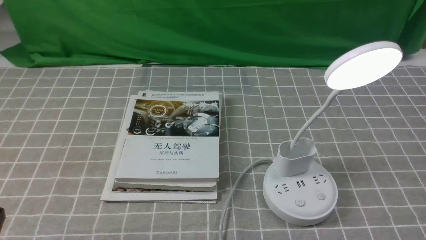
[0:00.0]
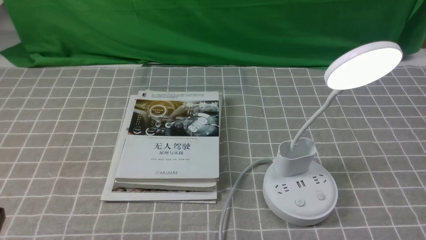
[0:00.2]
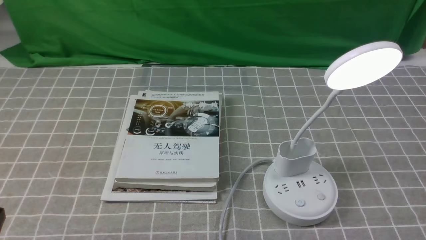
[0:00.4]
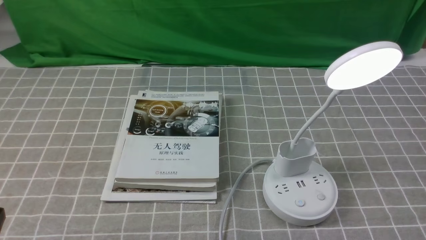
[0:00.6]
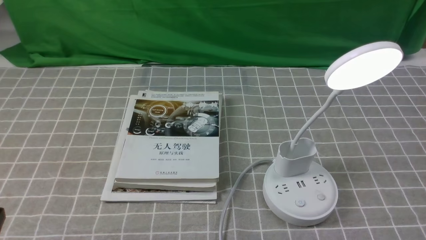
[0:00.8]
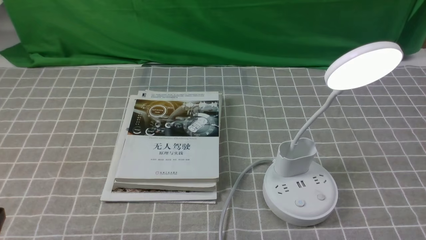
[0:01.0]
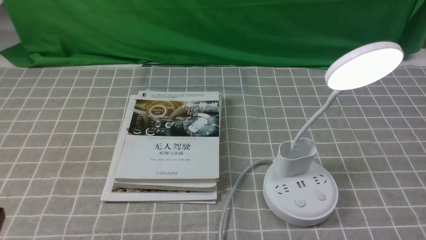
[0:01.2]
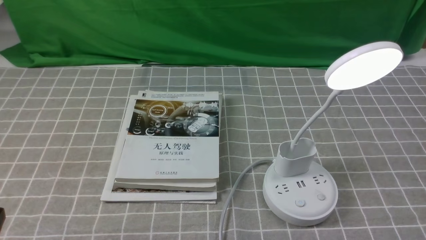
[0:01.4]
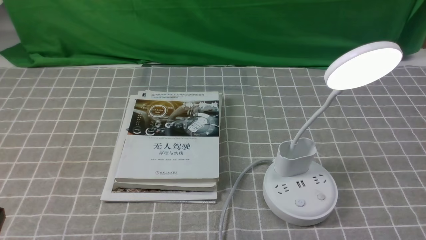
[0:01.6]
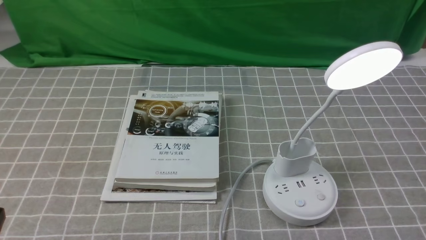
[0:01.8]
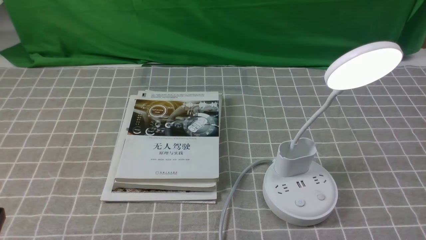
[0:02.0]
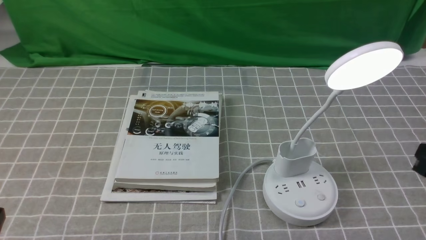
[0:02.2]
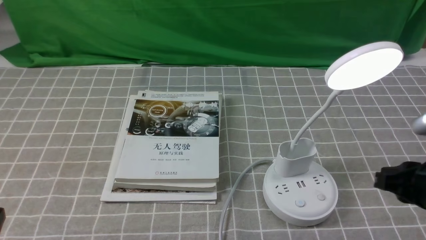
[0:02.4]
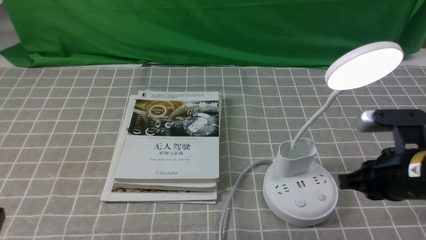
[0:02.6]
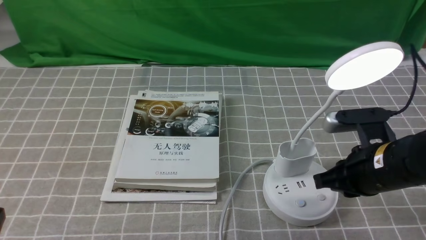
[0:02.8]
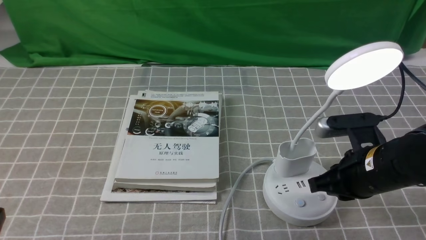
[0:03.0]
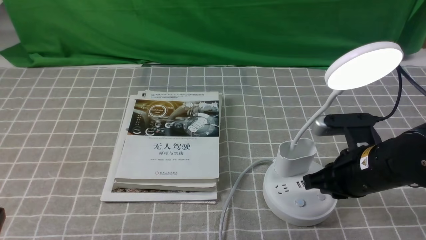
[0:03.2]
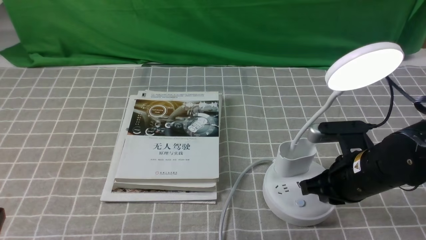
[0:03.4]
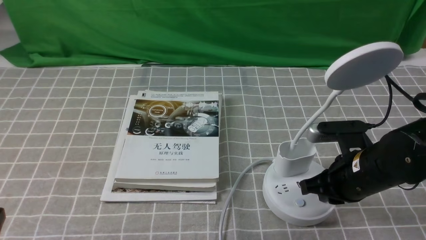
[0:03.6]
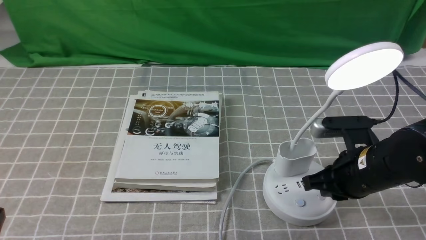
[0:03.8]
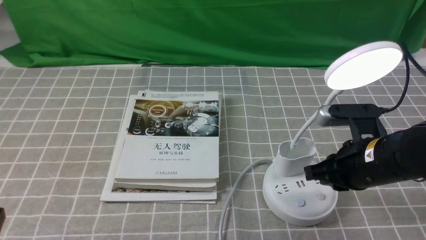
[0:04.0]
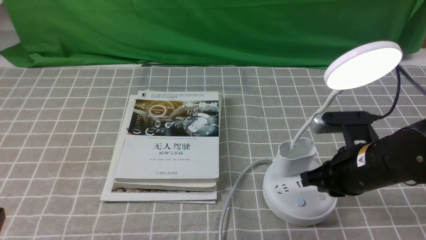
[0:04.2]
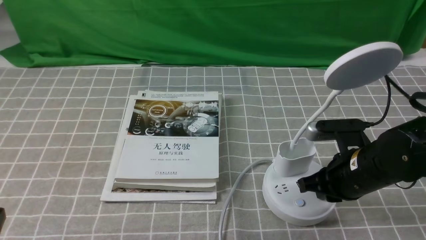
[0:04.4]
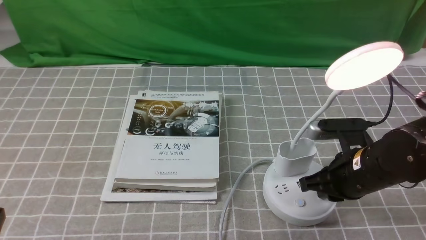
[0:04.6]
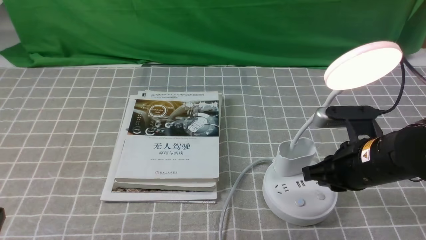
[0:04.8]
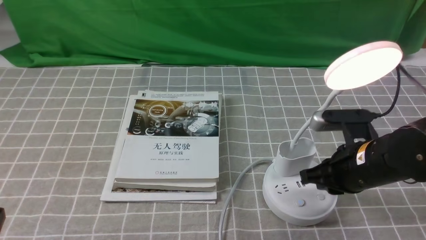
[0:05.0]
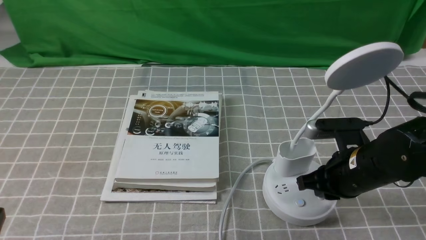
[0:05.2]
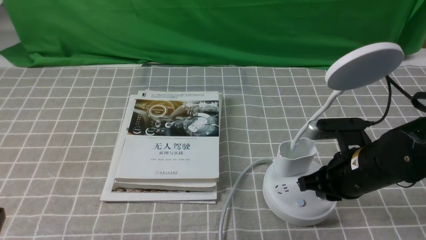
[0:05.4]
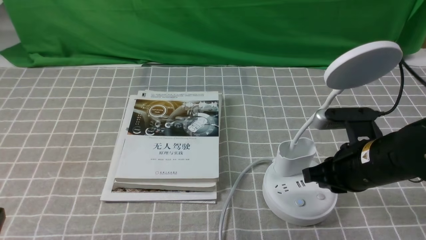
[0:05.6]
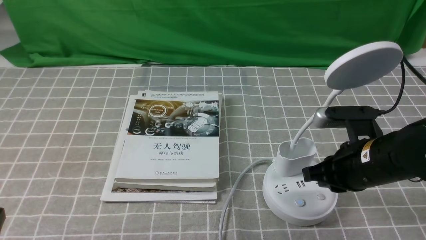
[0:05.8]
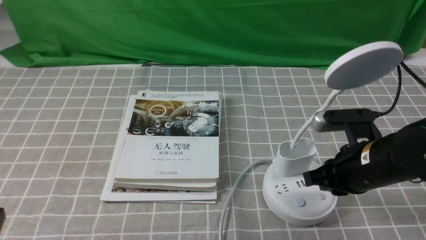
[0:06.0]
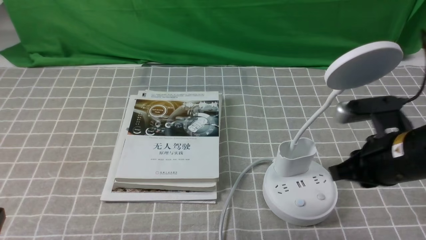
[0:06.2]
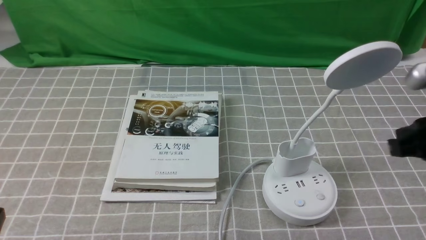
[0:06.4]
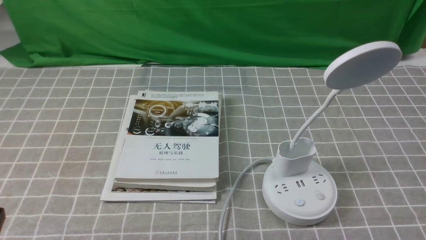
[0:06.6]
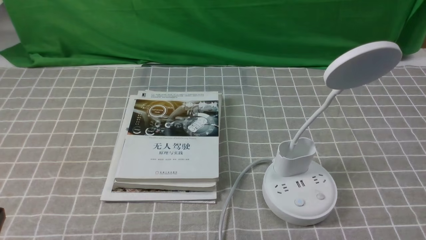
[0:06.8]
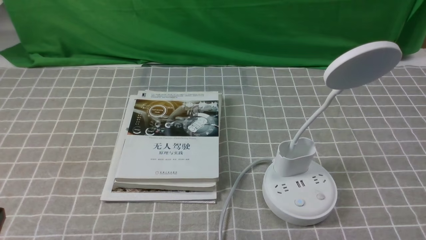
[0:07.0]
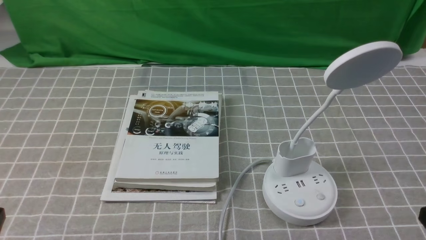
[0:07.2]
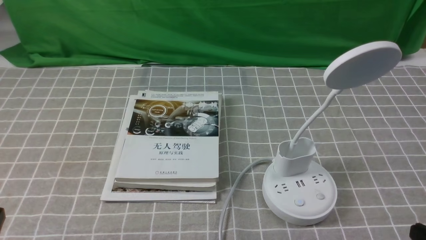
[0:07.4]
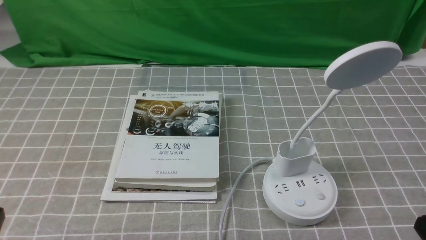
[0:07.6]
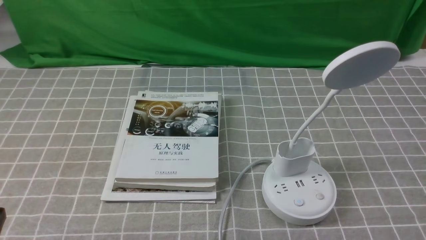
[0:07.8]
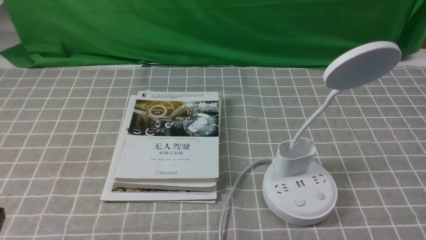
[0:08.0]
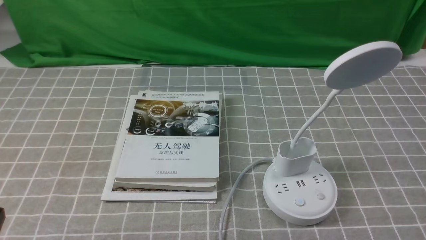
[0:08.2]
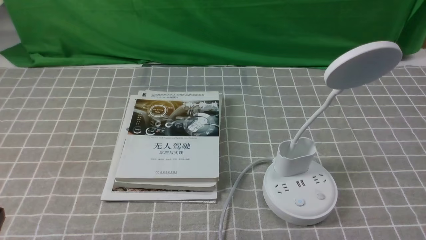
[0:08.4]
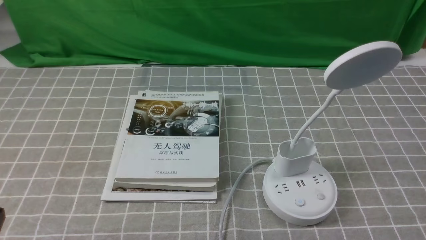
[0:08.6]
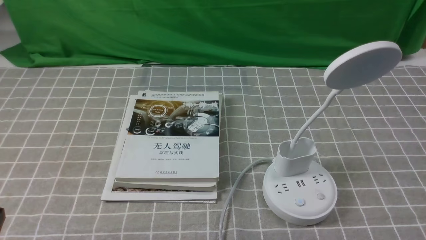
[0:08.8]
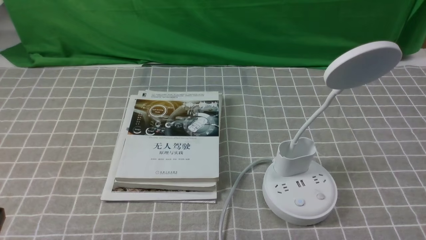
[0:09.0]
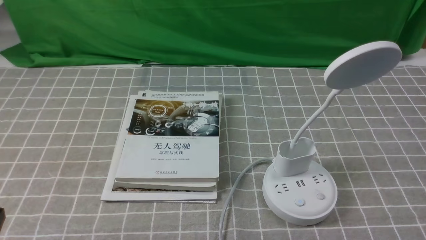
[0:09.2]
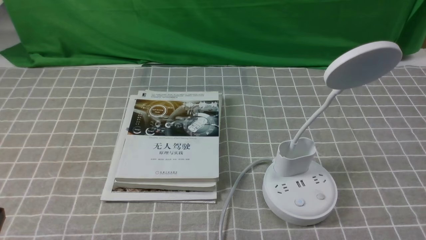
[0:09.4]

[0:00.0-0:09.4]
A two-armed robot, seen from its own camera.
Task of the whole recording: turn off the desk lamp on the grey coffee tablecloth by hand.
Step, 0:00.0 to 0:05.8: use the right arm to press the button switch on the lamp holder.
0:01.6 to 0:03.2: The right gripper shifts roughly 25 cm forward, to the left and downward.
0:03.2 to 0:04.8: The two grippers keep their place.
0:04.8 to 0:06.2: The right gripper travels upward by roughly 5 cm.
0:06.2 to 0:07.8: The right gripper is displaced backward and to the right by roughly 20 cm, and closes its fingers.
